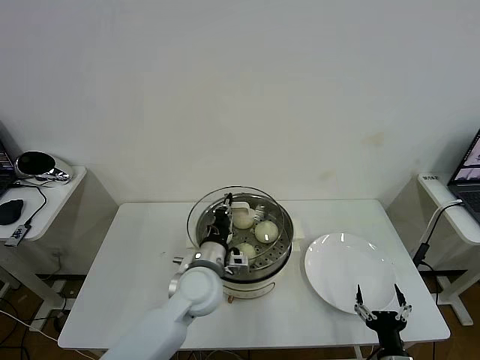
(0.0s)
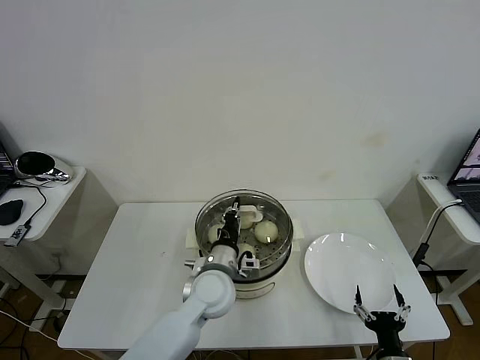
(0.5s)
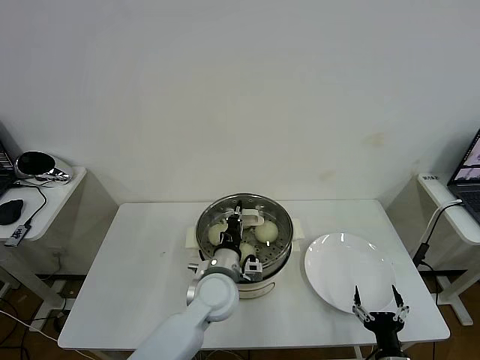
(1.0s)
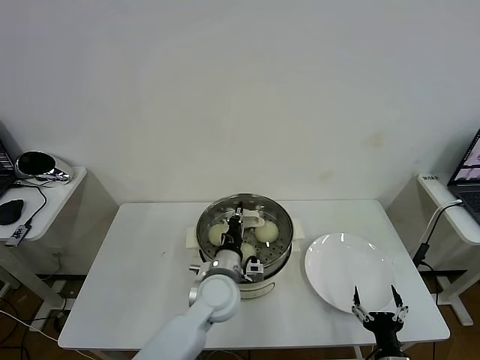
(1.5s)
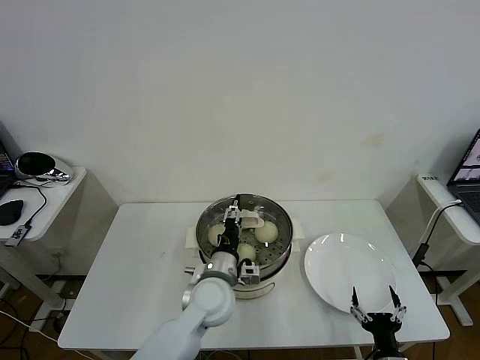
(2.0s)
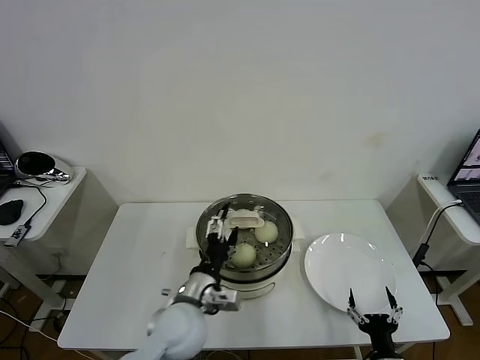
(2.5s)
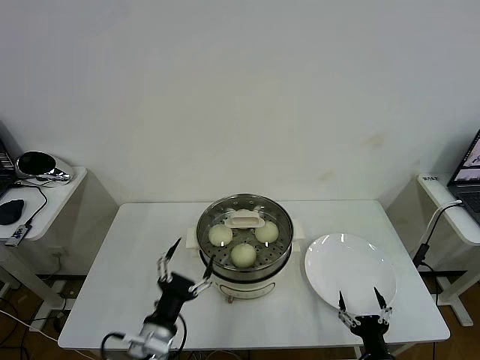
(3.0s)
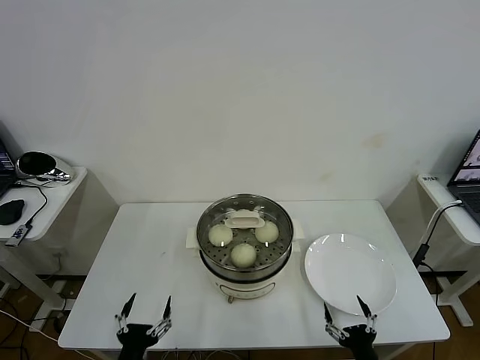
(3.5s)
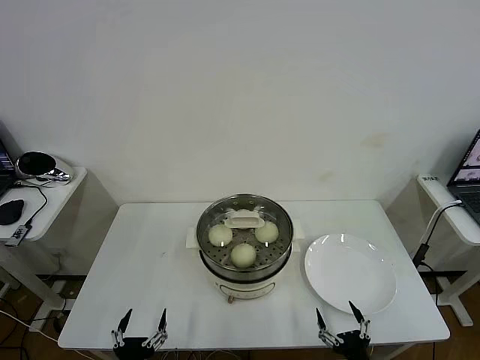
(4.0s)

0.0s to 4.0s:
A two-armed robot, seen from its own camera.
Task of the whole recording: take steamed baozi put them in steamer then cover it.
Step, 0.0s to 2.0s: Place the pot lid on the steamer with left gripper.
0.0s to 2.0s: The left gripper opens.
2.0s to 4.0s: The left gripper travels backward and to the left by about 30 cm, and opens.
